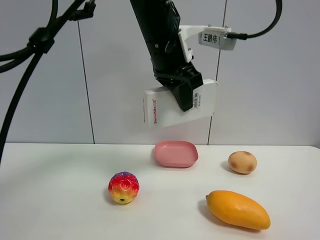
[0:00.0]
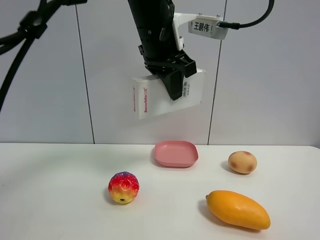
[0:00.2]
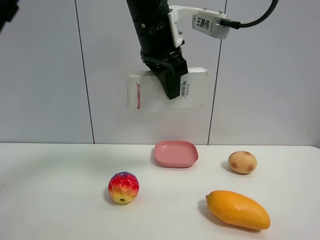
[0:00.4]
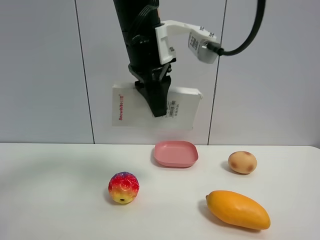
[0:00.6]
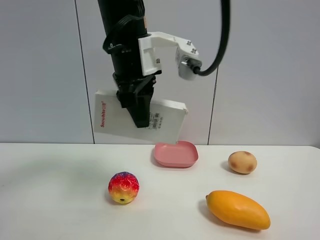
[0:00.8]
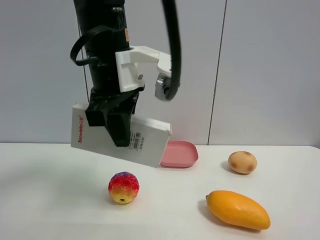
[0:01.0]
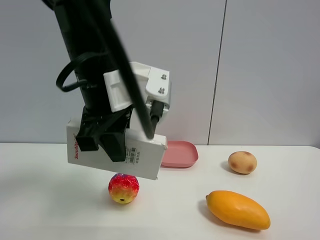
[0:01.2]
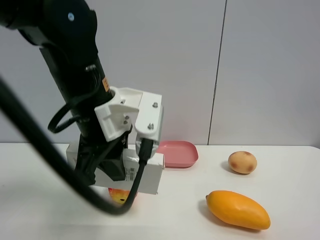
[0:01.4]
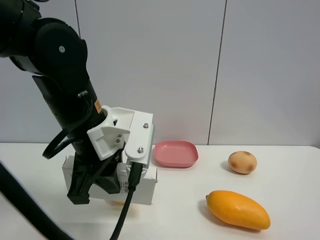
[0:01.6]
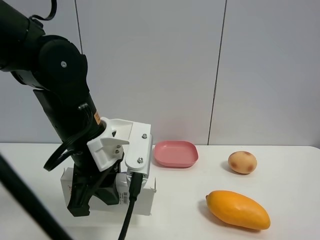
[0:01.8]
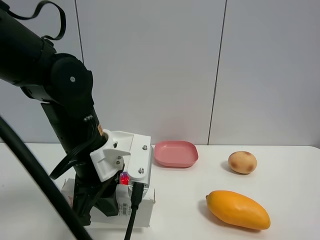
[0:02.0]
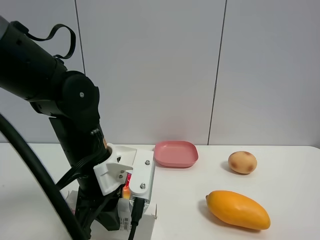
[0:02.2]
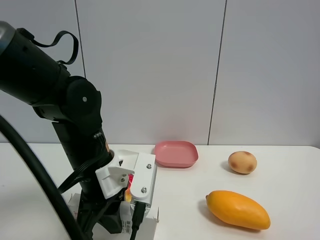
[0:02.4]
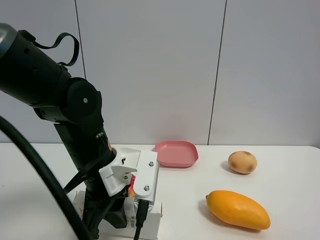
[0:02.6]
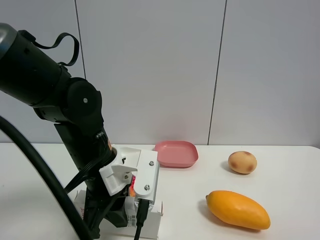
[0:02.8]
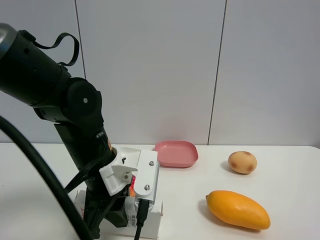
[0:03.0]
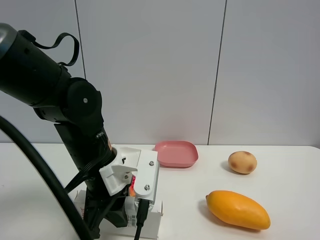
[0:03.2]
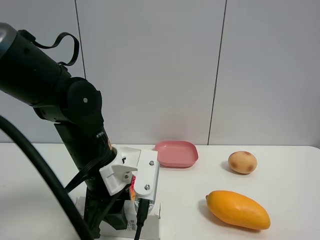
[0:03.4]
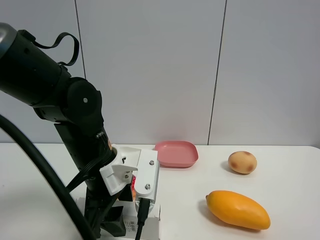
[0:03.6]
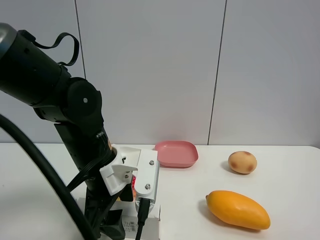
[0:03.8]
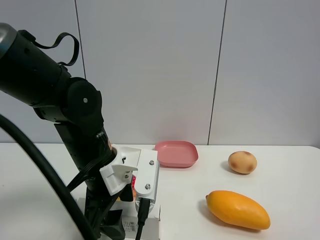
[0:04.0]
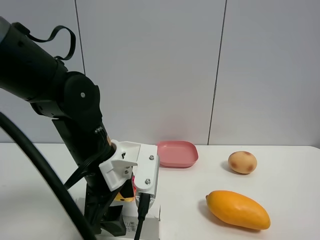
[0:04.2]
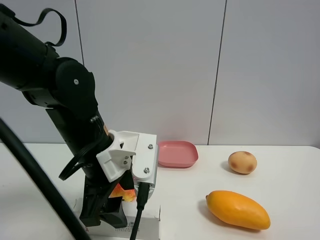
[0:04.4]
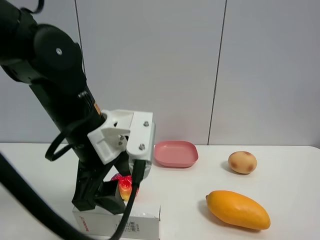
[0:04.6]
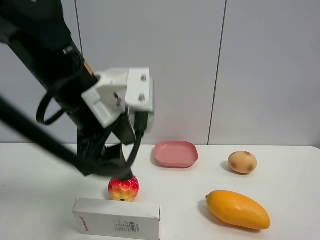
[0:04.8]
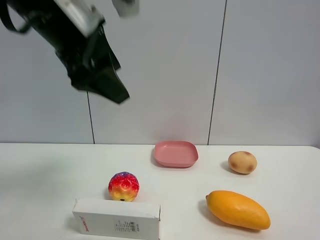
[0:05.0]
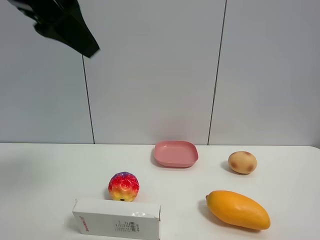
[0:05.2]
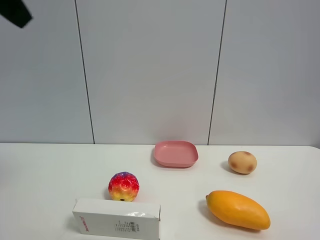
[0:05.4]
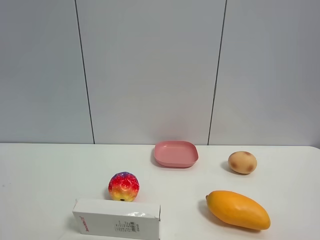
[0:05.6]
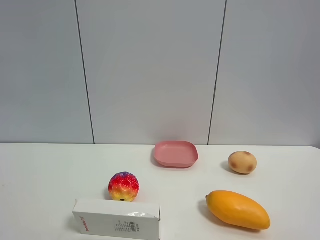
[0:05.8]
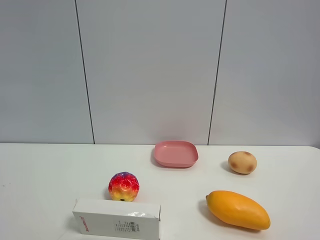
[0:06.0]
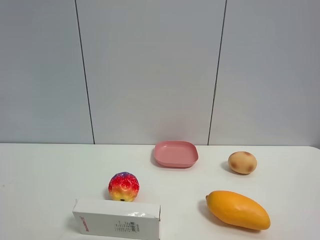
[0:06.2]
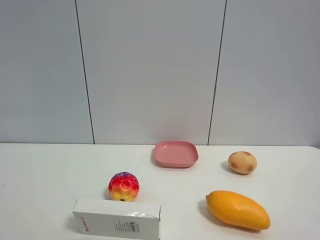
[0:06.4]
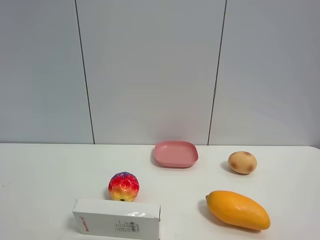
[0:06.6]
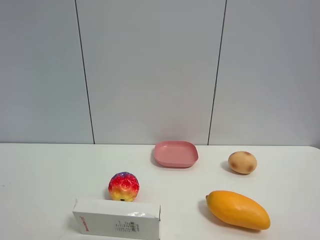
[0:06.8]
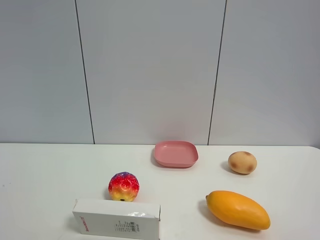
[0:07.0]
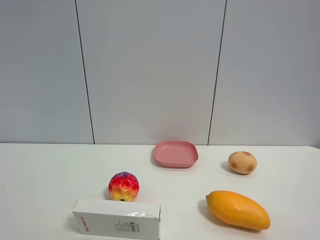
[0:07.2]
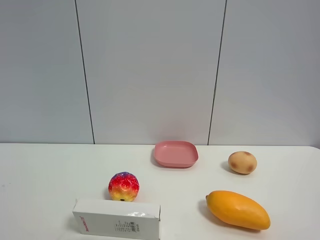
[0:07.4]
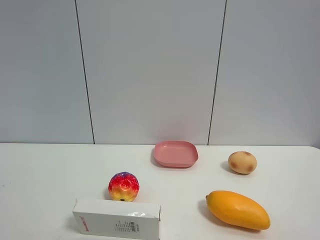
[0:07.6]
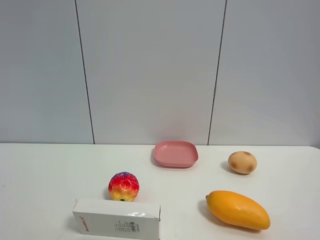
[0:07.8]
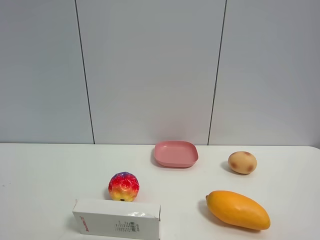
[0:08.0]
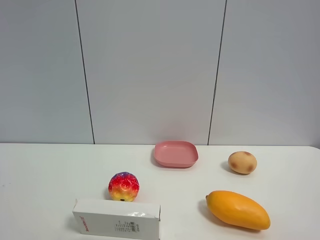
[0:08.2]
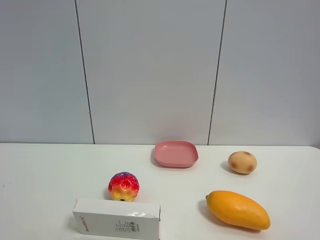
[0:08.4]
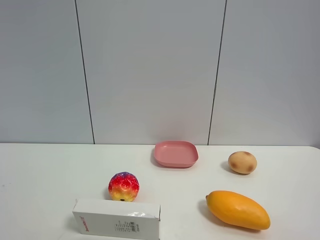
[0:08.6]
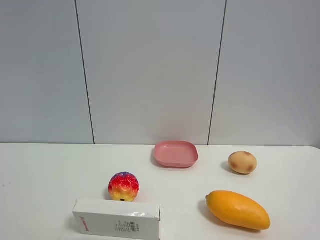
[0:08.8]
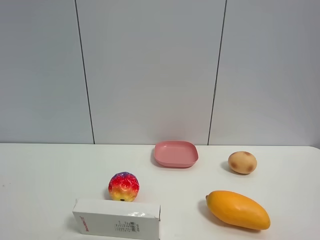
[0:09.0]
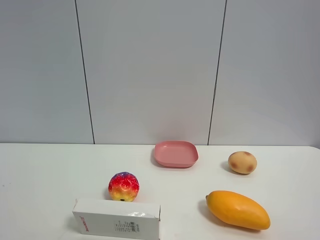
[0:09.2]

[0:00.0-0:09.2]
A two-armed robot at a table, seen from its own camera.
Task of the whole recording: the gripper move the object.
0:00.0 to 0:01.6: The left gripper shifts some 20 cm downward, backward and to the left.
0:01.6 to 0:03.0: The left gripper goes some 5 cm downward.
0:03.0 to 0:04.6: The left gripper heads upward, covering some 5 cm, and opens up.
0:04.6 to 0:06.2: The left gripper heads backward, to the left and upward, covering about 40 cm.
0:07.6 to 0:09.2: The two grippers keep their place.
